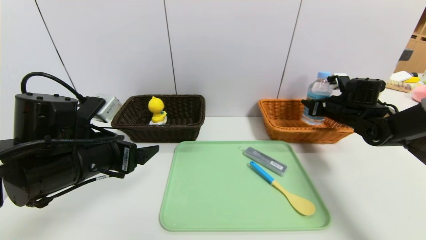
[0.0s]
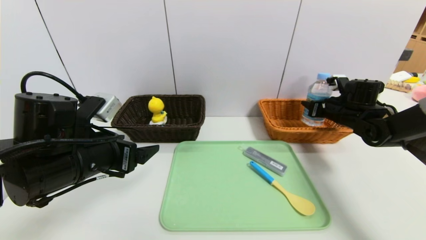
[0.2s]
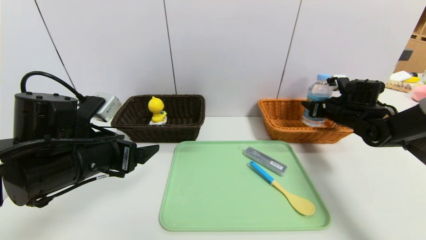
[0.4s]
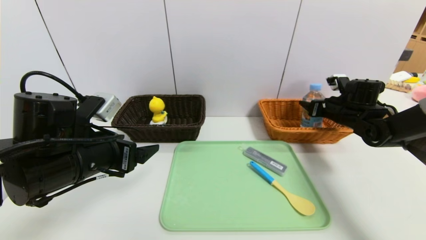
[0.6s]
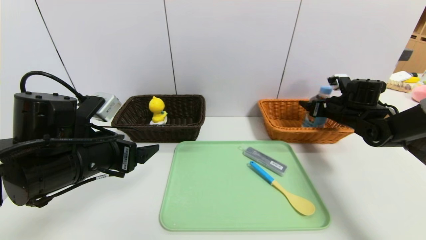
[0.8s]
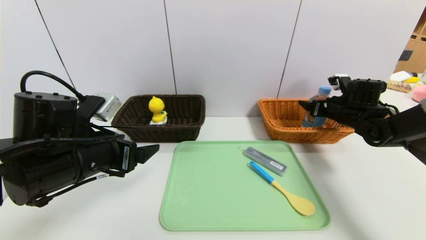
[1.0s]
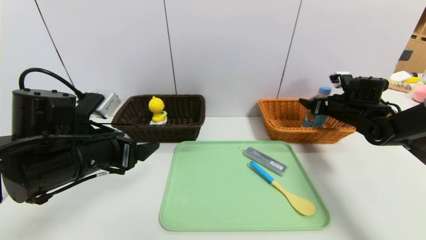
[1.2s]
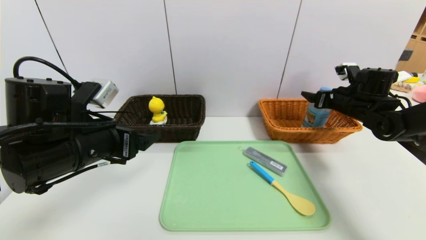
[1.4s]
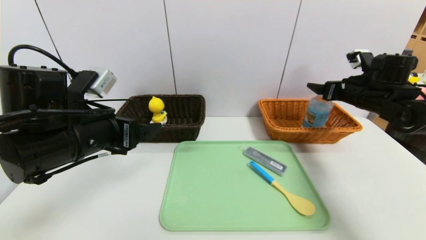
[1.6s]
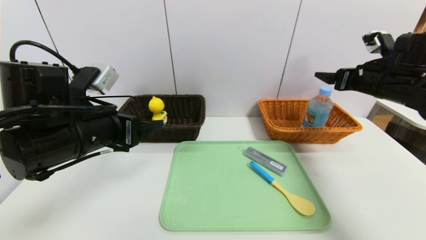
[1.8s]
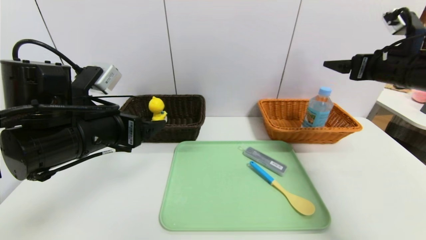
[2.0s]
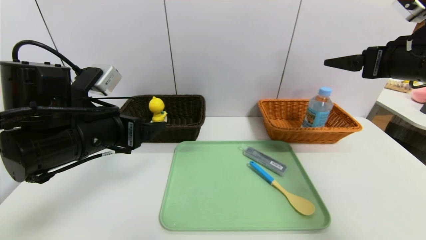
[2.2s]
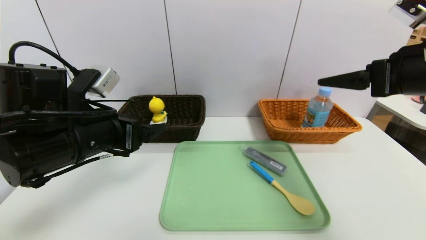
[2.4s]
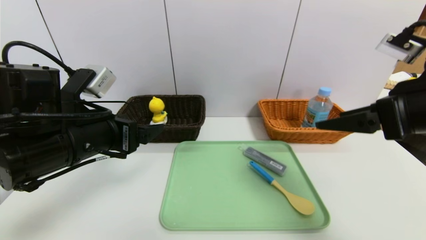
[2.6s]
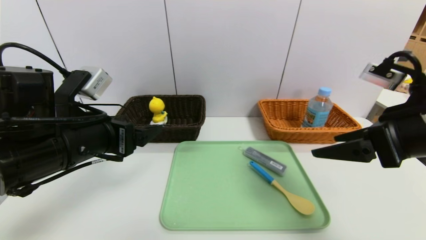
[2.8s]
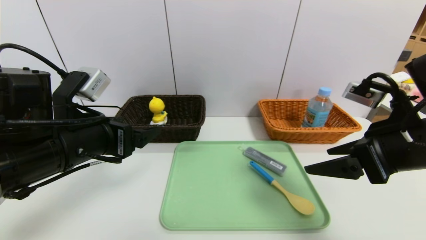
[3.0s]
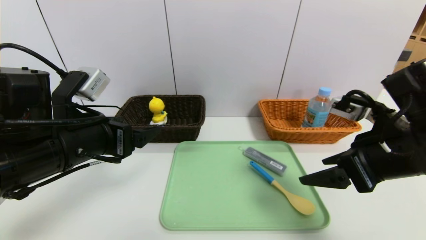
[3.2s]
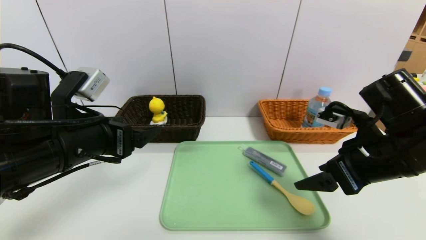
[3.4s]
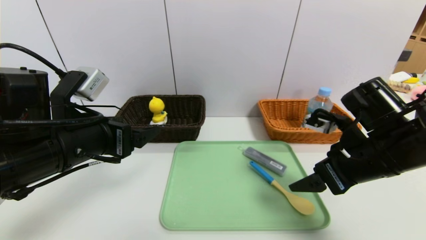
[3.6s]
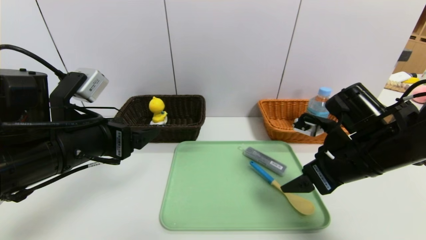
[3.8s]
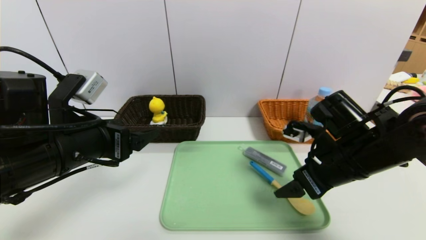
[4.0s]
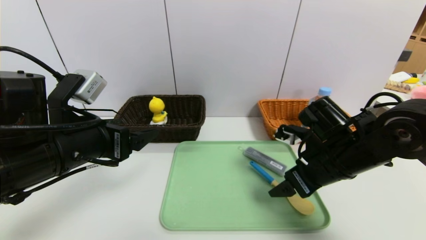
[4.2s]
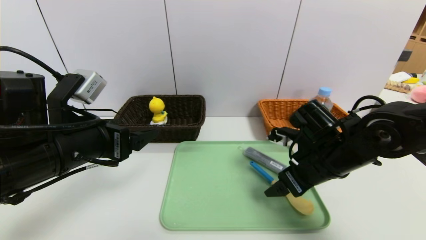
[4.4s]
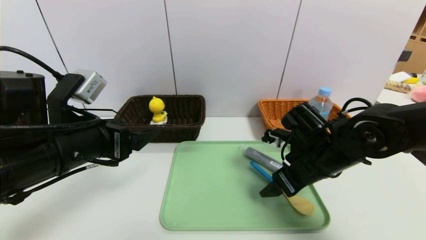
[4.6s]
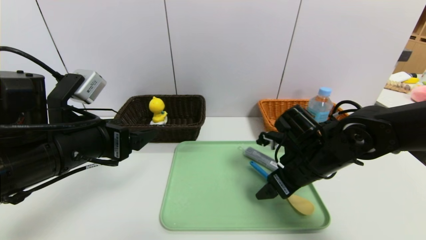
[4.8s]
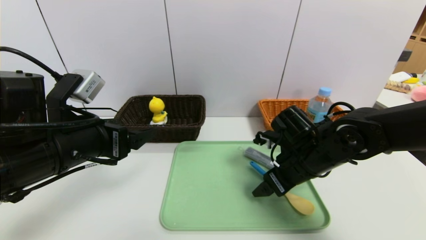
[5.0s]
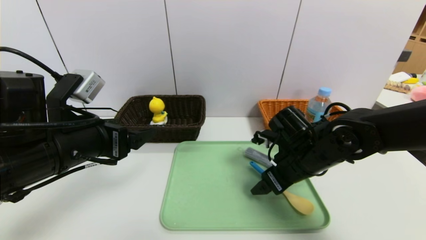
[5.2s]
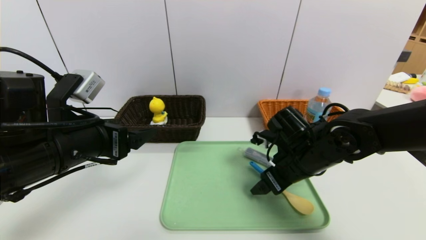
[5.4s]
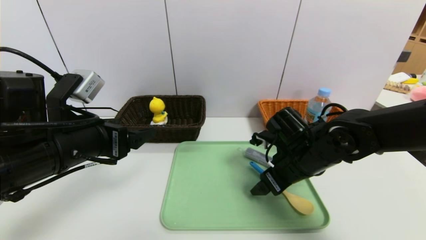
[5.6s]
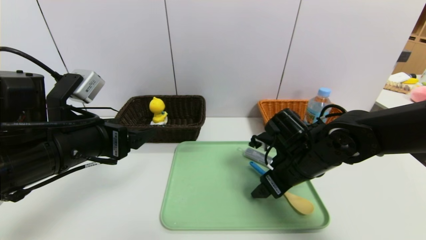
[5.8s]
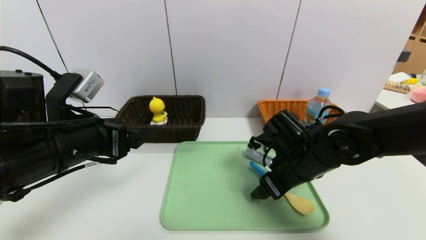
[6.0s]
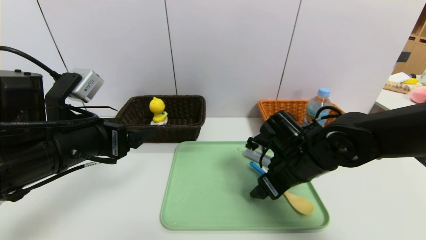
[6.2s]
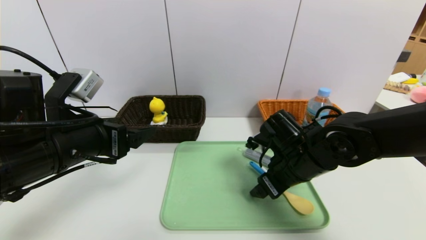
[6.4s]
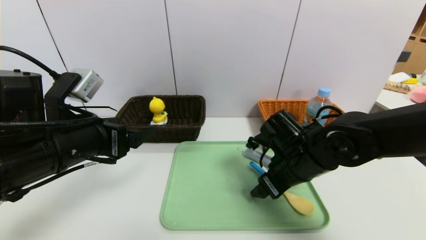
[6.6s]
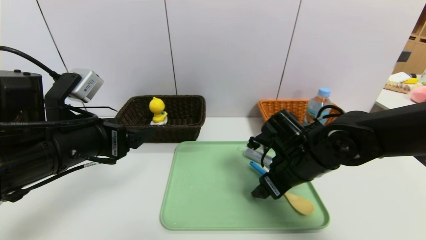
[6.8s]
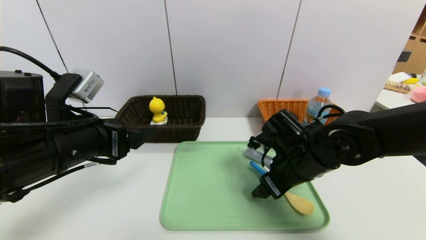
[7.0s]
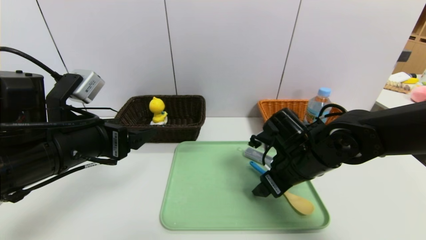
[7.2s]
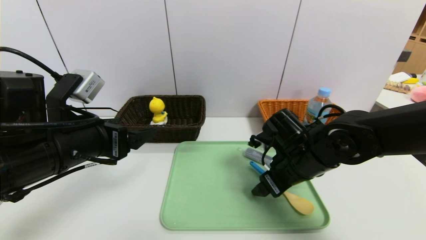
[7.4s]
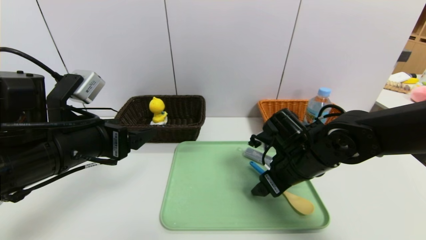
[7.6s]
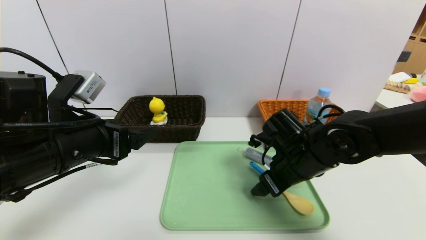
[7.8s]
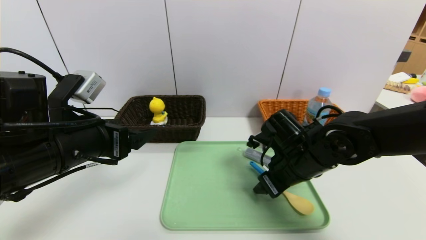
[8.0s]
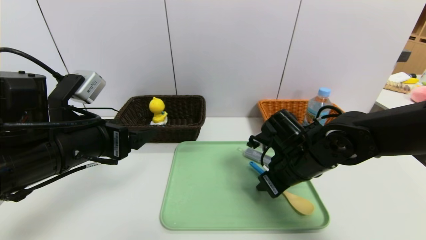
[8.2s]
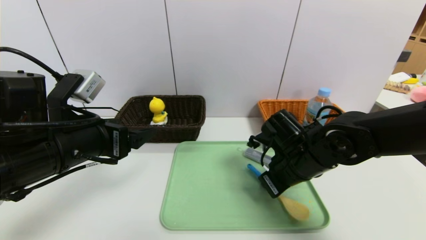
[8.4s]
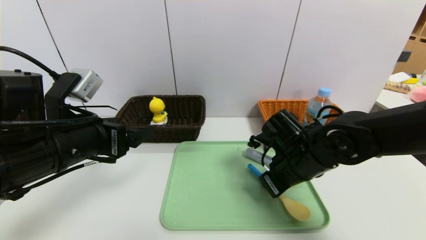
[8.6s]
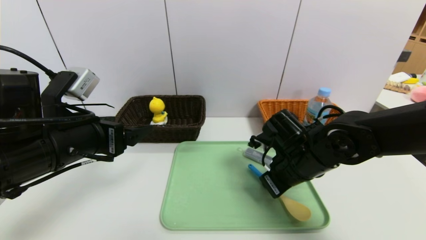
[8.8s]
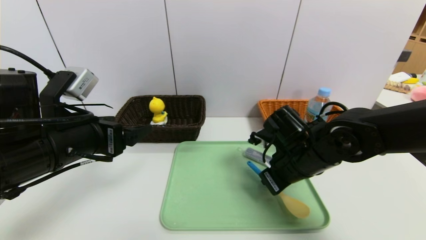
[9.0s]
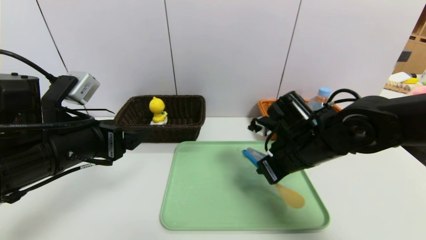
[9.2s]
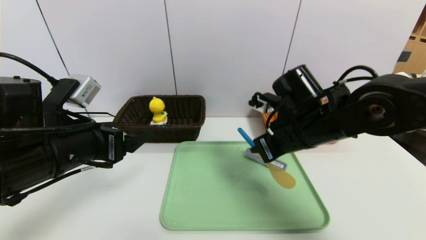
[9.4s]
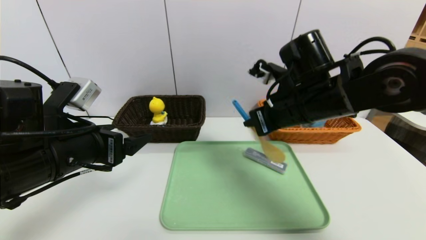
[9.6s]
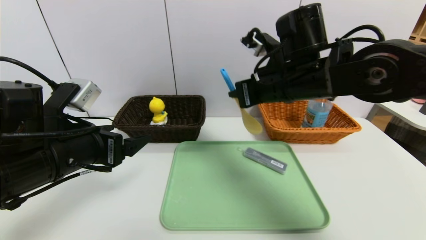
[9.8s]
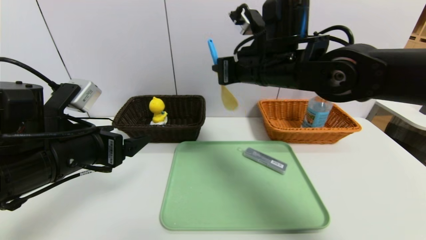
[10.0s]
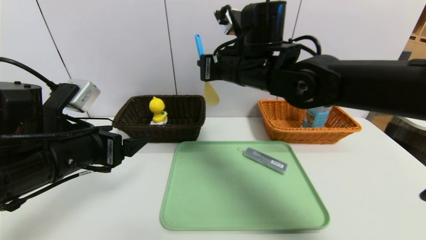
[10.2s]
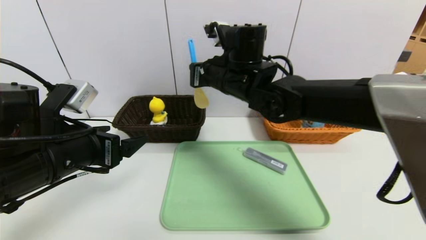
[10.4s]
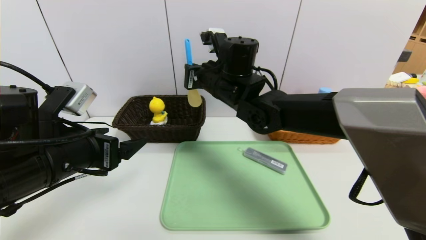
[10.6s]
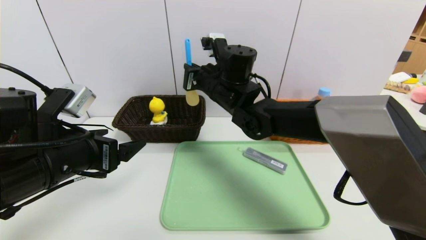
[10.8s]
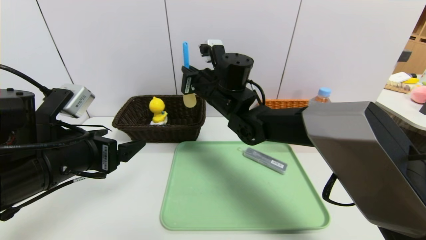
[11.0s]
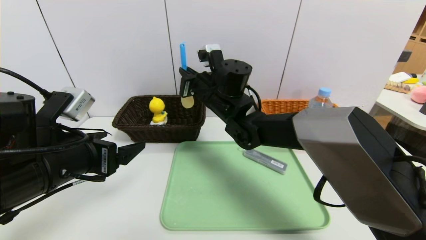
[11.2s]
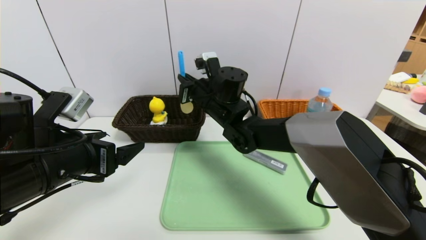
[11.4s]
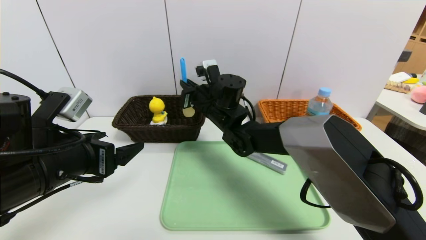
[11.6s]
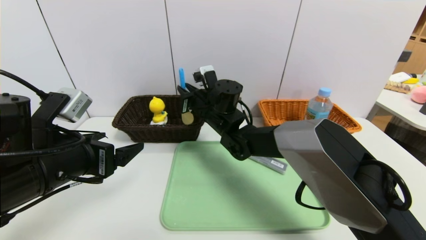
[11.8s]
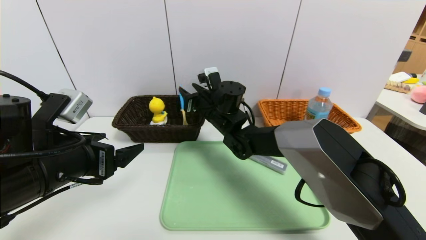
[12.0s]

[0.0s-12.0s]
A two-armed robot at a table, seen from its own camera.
Task of the whole recording: place the food in the right basket with the right gripper, and place the non food items in the left basket with the left gripper.
0.0s to 1.6s: The right gripper heads upward, covering about 5 cm, and opens up.
1.6s to 3.0s: The right gripper moves backward and to the left, about 20 cm.
3.0s to 4.4s: The right gripper shifts roughly 15 cm downward, forward and to the left.
4.4s to 6.0s: The grippers stay close to where they were, moving slightly.
6.0s to 7.6s: Both grippers stay about where they are.
7.6s to 9.0s: The right gripper closes.
9.0s to 10.4s: The right gripper moves upward, to the left and forward, roughly 20 cm.
10.4s to 12.0s: The right gripper travels downward and forward by roughly 10 cm, and opens its fingers.

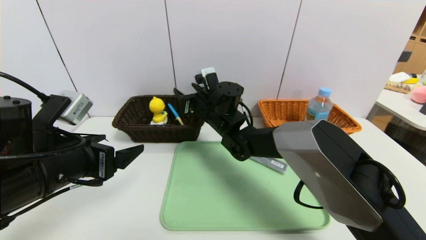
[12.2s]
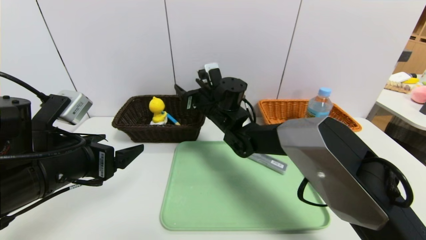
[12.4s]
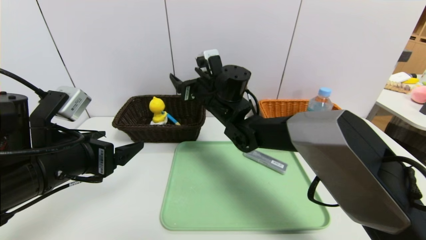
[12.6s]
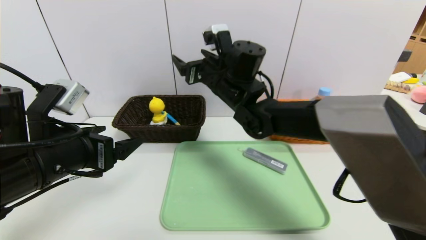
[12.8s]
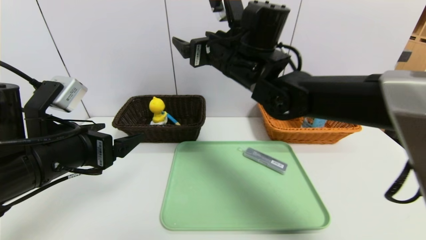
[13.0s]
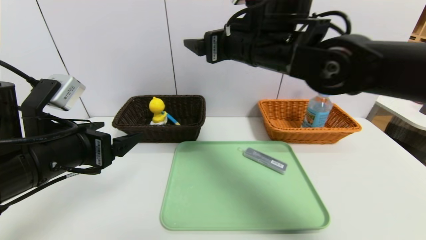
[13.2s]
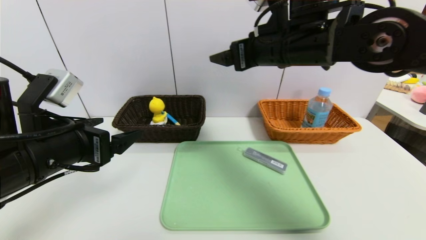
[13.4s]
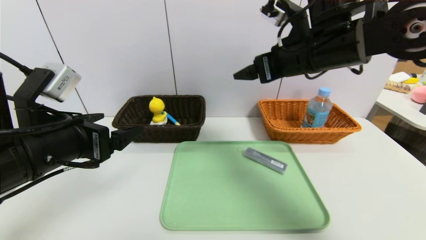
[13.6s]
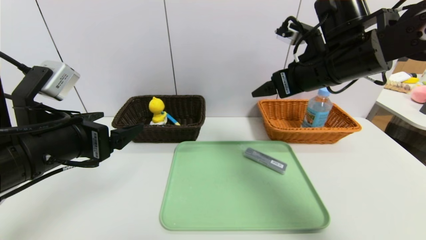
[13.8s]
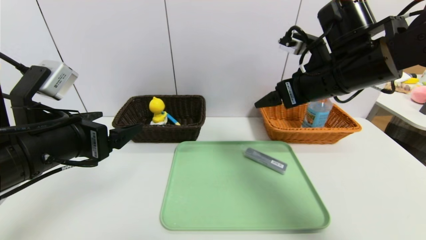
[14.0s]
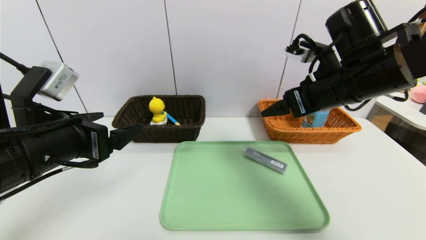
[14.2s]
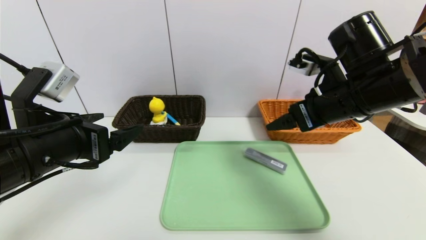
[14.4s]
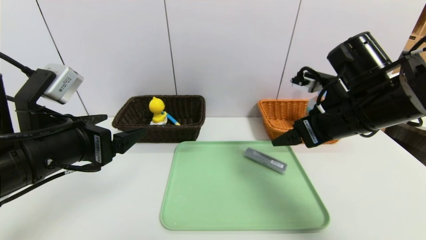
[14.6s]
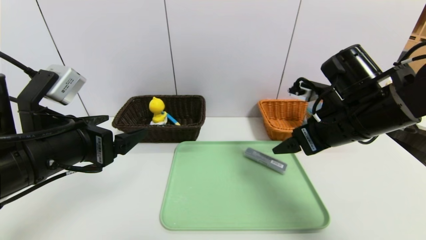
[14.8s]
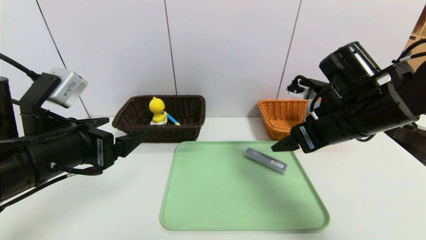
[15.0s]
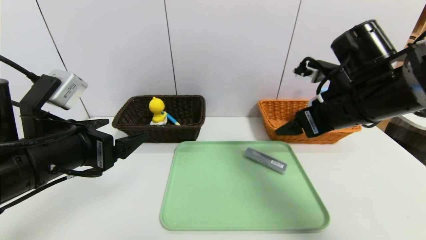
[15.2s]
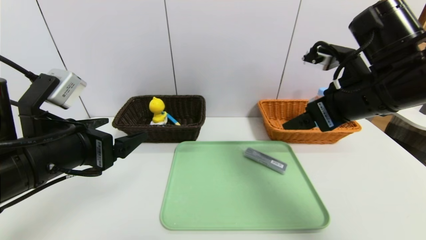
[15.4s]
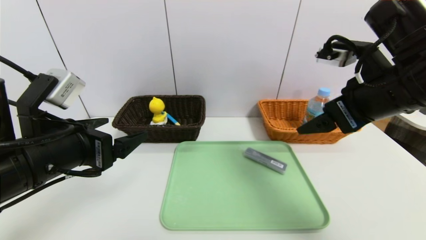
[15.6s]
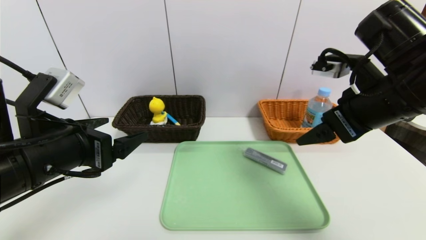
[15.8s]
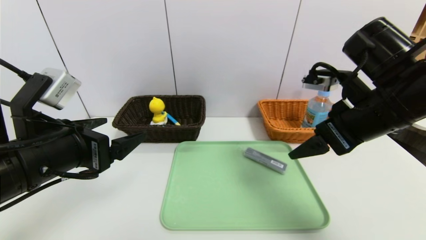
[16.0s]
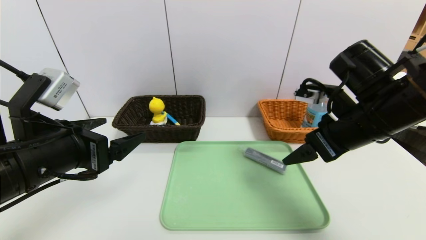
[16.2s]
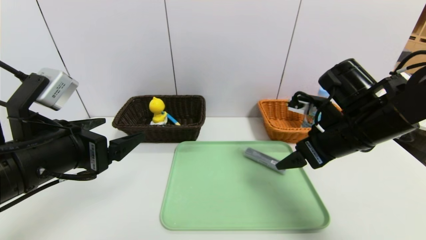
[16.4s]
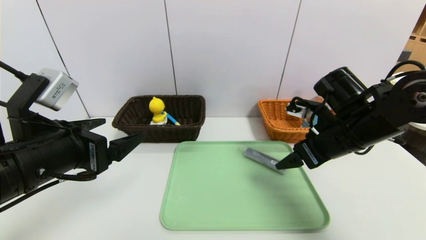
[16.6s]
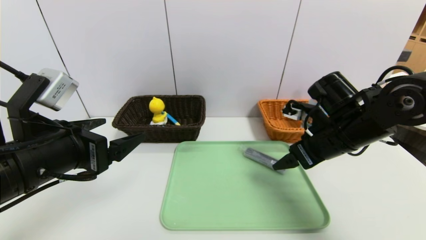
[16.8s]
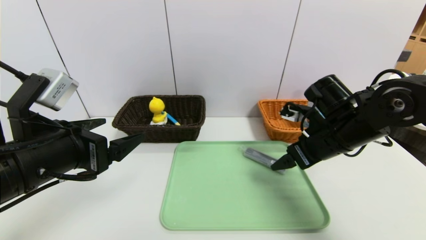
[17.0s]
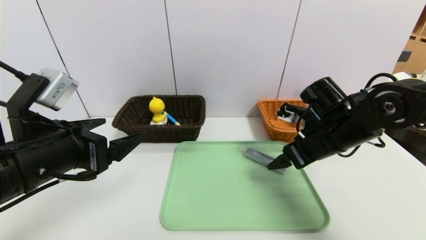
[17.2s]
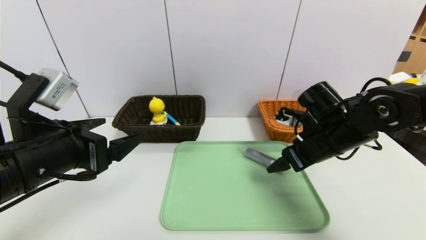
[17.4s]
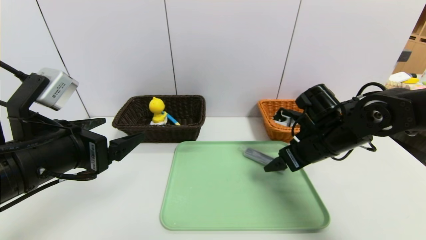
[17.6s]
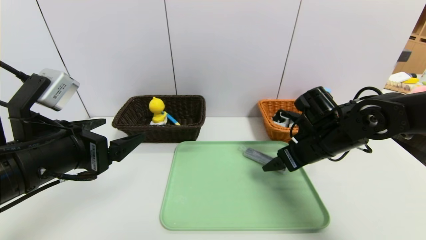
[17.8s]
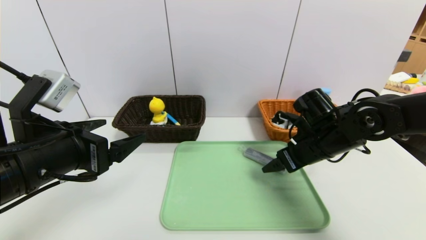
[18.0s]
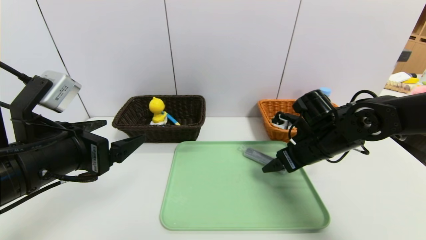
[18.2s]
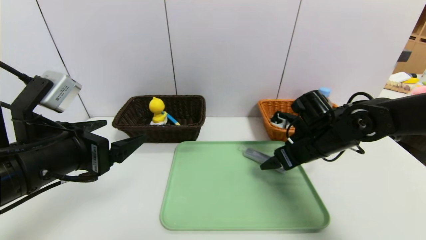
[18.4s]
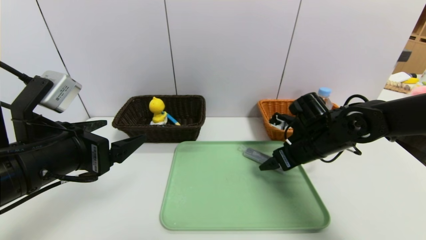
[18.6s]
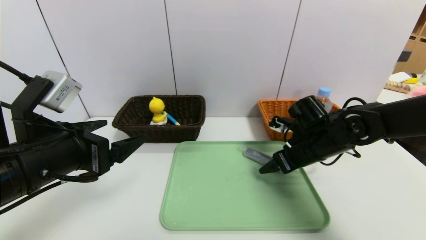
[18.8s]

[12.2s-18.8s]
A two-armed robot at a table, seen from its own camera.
Task of the whole recording: place the food in the right basket with the right gripper, and place the non food items in the left basket with the left gripper.
12.2s to 13.8s: The right gripper goes some 25 cm to the right, upward and backward, and opens up.
13.8s to 15.4s: The right gripper goes roughly 5 cm backward.
15.4s to 17.2s: The right gripper shifts about 10 cm downward.
17.2s to 18.8s: The right gripper moves roughly 5 cm.
